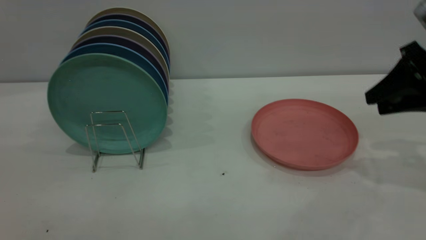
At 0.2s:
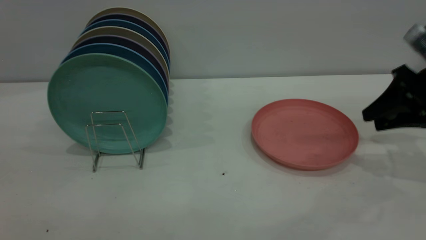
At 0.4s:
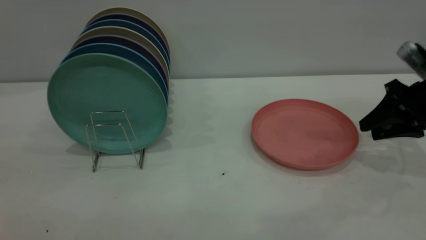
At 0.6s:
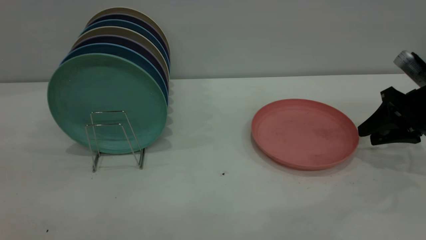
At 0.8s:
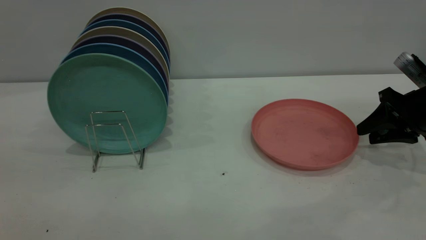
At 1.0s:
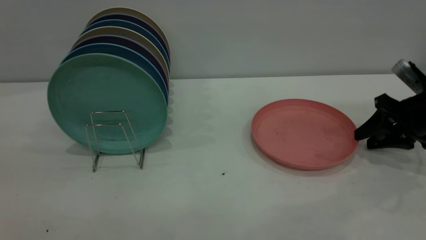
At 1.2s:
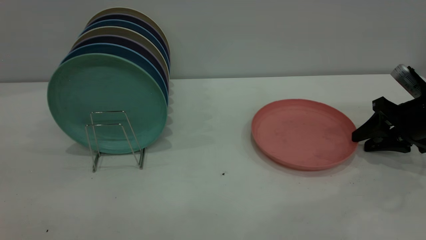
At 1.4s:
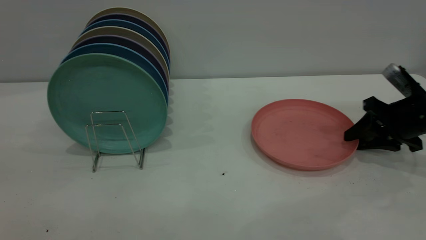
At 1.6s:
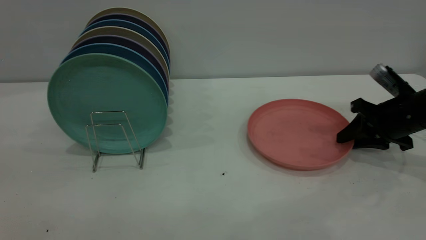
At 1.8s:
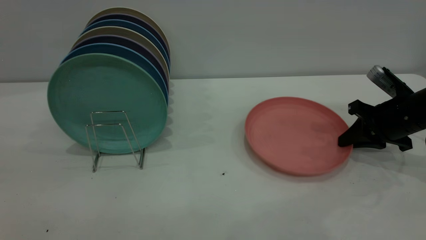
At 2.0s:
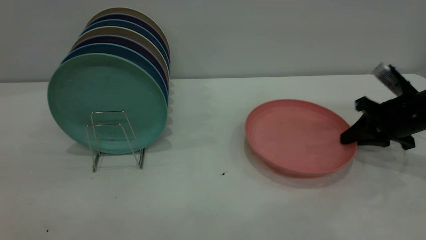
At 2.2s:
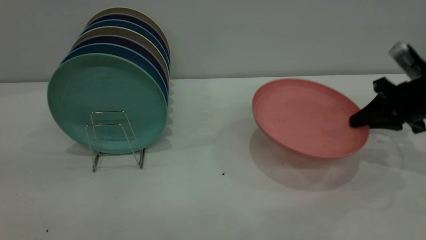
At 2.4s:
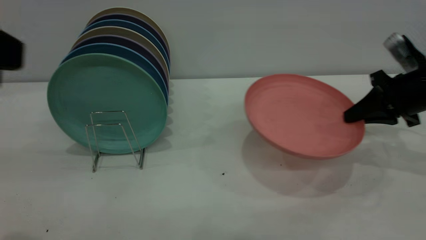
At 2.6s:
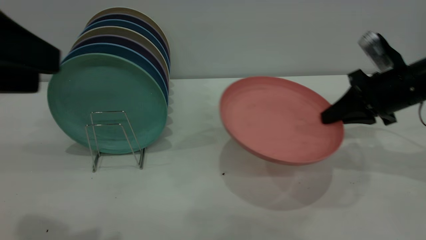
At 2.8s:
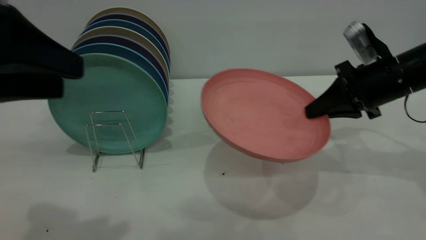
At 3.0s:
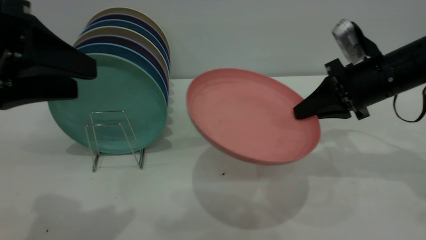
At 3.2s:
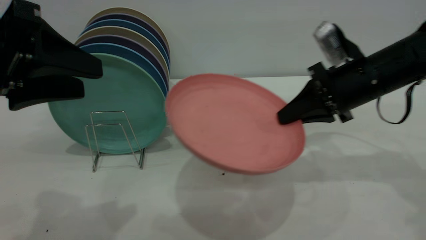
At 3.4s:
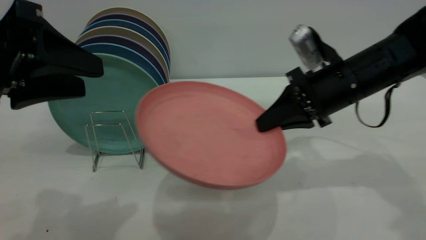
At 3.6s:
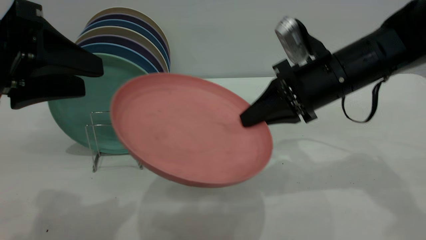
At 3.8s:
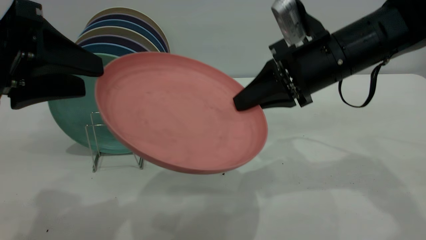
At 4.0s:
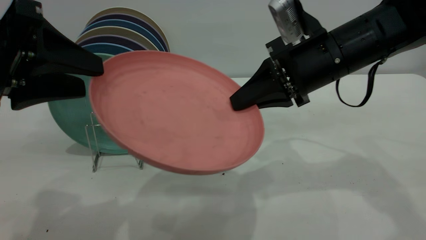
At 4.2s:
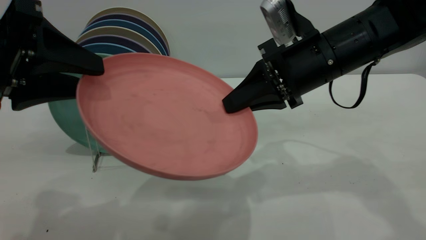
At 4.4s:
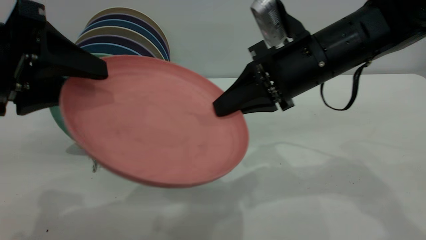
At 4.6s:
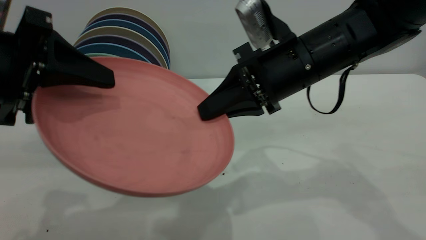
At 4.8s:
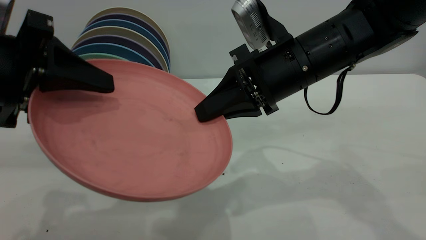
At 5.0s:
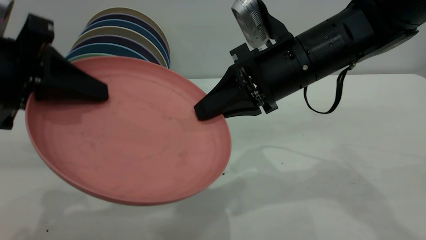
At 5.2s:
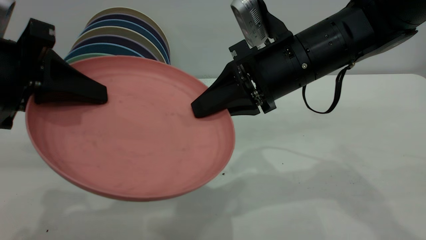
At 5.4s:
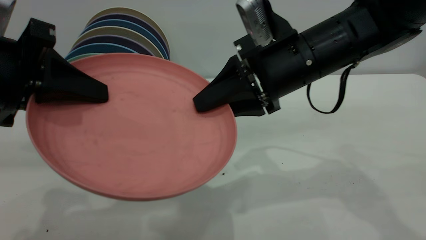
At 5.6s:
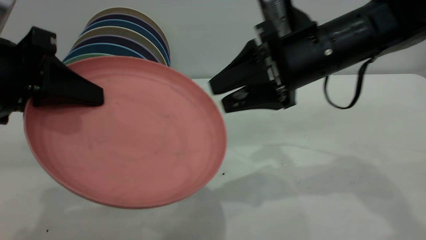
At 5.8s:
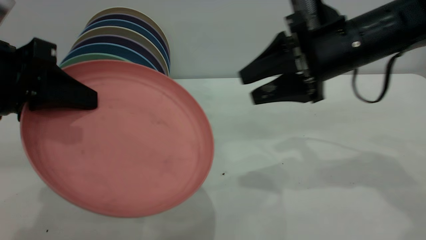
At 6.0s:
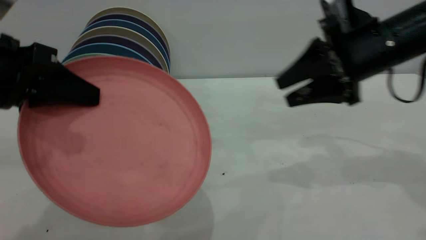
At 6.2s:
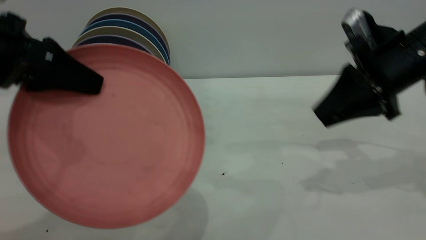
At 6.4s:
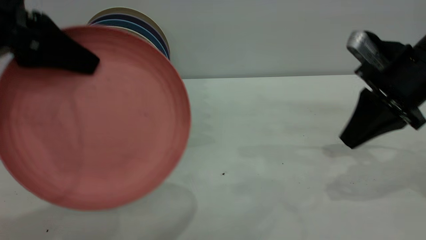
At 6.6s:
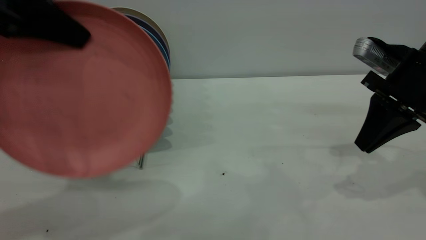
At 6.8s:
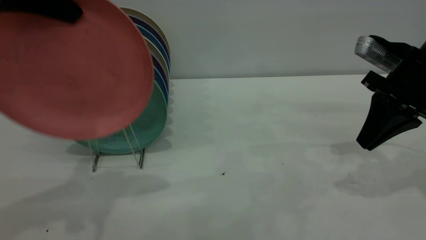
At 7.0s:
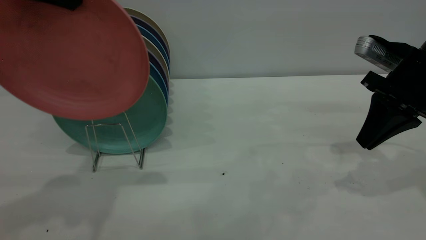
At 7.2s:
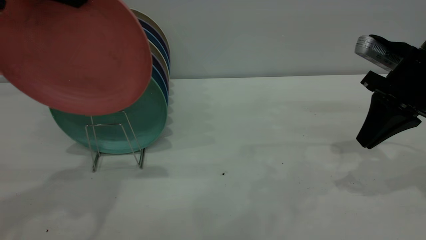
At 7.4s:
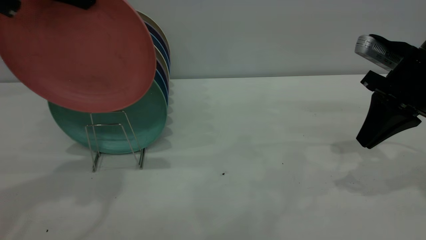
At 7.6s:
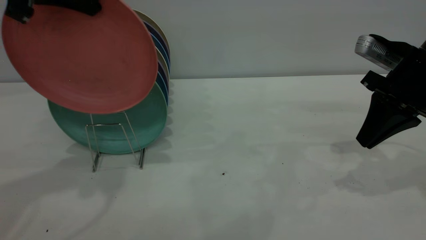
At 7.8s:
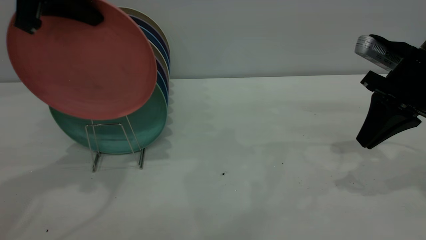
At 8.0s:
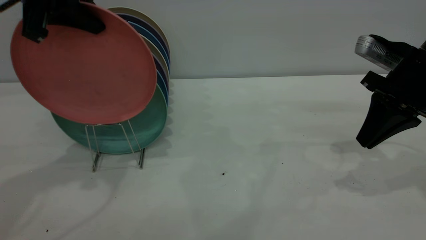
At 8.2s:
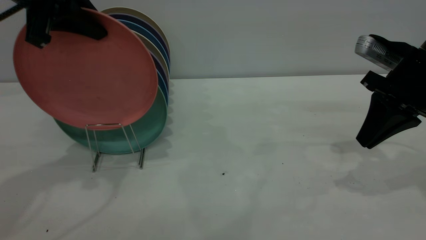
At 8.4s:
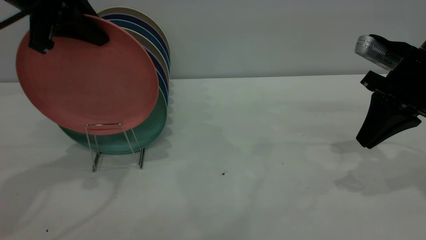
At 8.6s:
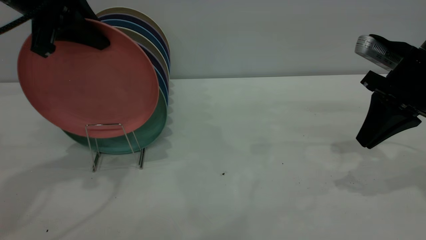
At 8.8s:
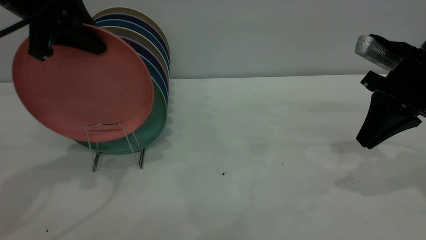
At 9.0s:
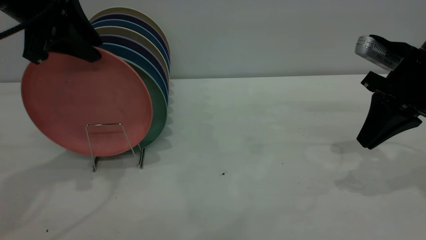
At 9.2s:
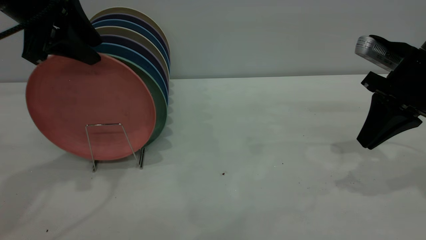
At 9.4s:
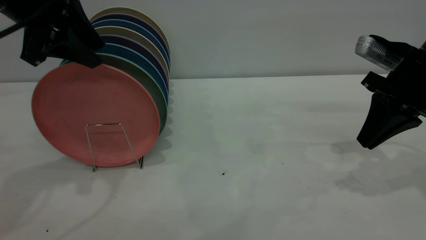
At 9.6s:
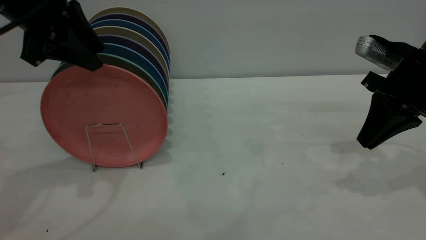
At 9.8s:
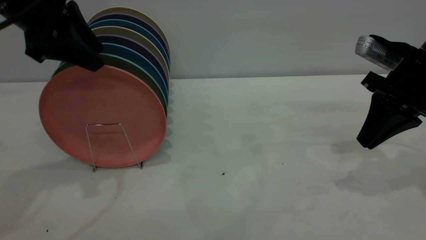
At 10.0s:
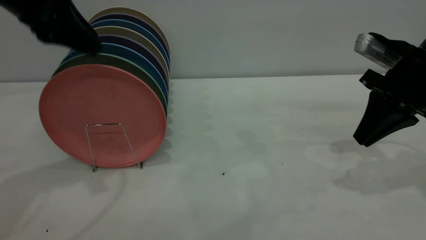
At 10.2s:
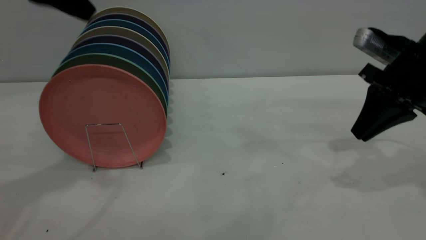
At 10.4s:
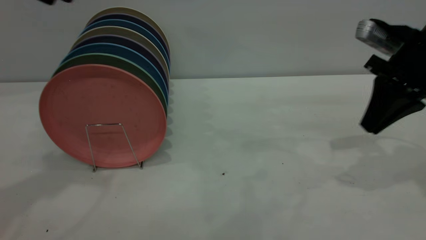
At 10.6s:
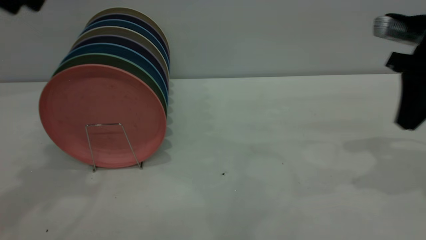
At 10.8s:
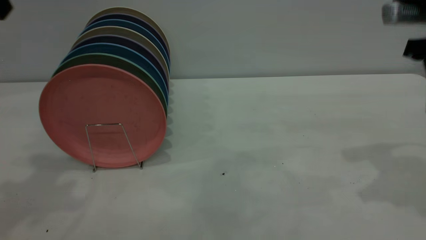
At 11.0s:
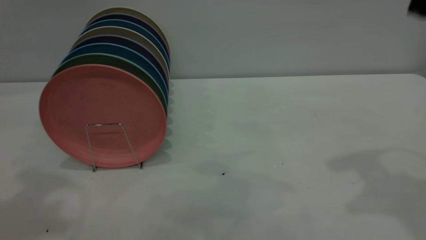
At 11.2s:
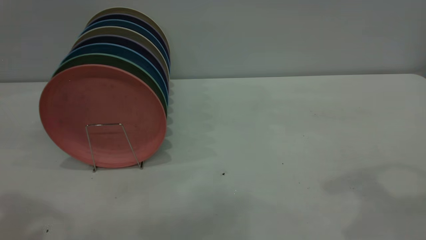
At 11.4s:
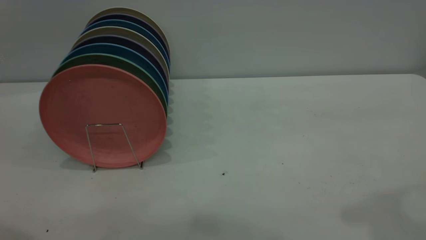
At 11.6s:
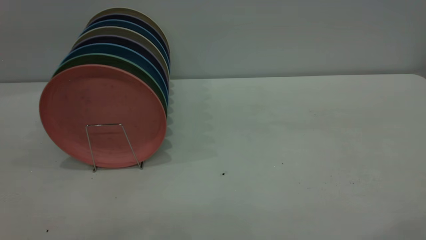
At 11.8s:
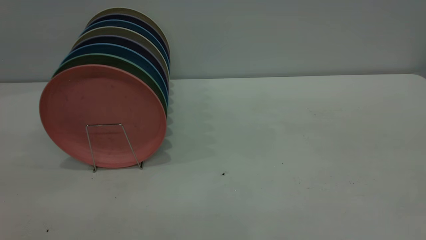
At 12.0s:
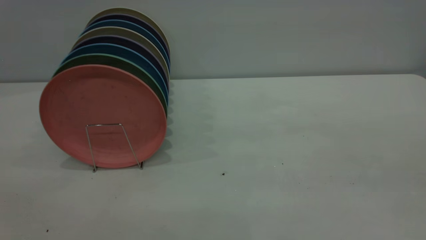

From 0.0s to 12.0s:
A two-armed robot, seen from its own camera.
Task of the whole recording: the right gripper grasp the pink plate, the right gripper pass the pink plate to the left gripper, and the left gripper place the pink plate on the plate rack.
Step, from 0.0s to 2.4s: Pick up the plate with the right gripper.
Step, from 2.6s to 6.2s: Pass the plate from the right gripper to the left gripper.
Step, from 6.6s to 10.6s: Place the plate on the shelf.
From 0.0s to 1.6s: The right gripper heads downward, covering approximately 10 cm, and closes up.
From 1.6s to 3.0s: The left gripper goes about 15 cm forward and downward, while the right gripper goes some 10 cm to the left and upward, and closes its fingers.
From 3.0s to 4.4s: The right gripper is displaced to the left by approximately 10 cm.
From 4.4s to 6.0s: The left gripper closes. Meanwhile the right gripper shifts about 10 cm to the right, and opens its fingers.
From 6.0s to 7.6s: The left gripper is displaced forward and upward by approximately 15 cm. The right gripper ends up roughly 5 cm from where it was, and closes its fingers.
From 7.6s to 9.0s: The left gripper shifts by roughly 5 cm, and opens.
From 9.0s to 10.4s: The left gripper is displaced upward by approximately 10 cm.
From 10.4s to 12.0s: The right gripper heads backward and upward, covering approximately 35 cm, and opens.
